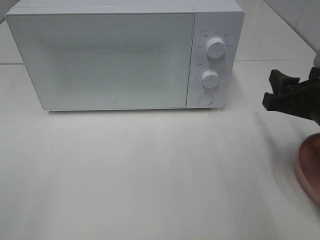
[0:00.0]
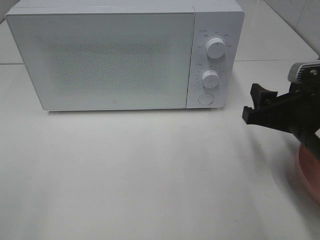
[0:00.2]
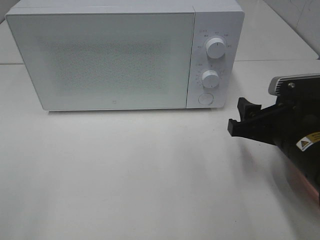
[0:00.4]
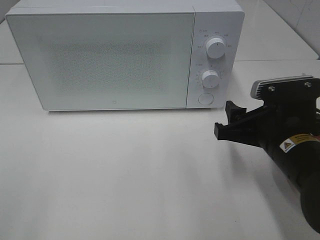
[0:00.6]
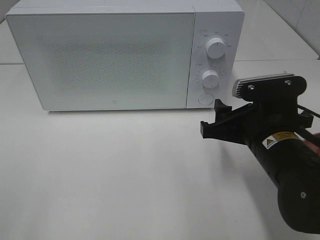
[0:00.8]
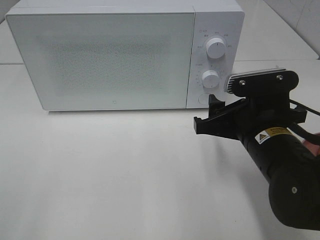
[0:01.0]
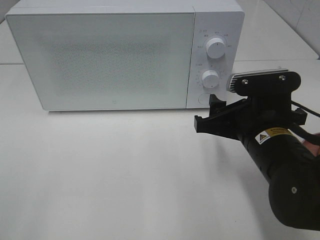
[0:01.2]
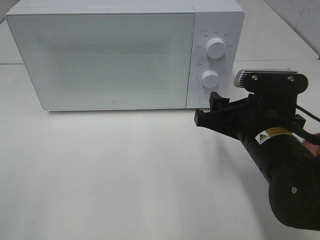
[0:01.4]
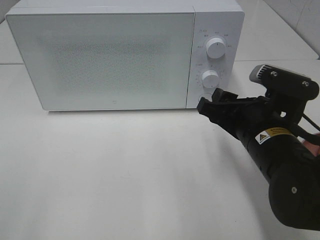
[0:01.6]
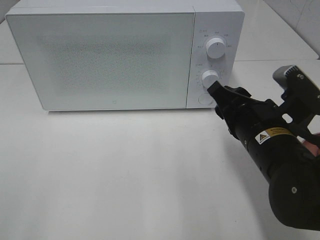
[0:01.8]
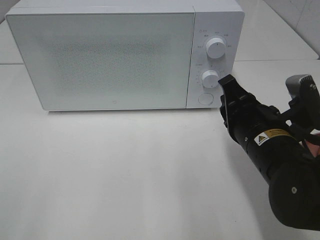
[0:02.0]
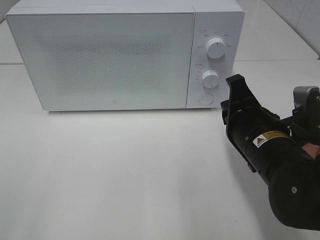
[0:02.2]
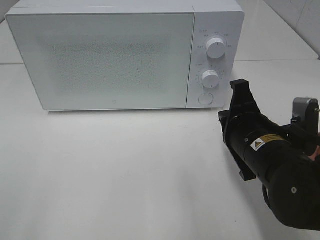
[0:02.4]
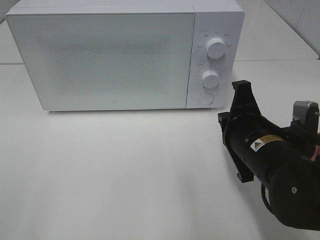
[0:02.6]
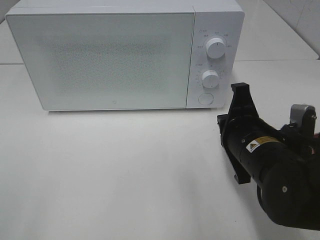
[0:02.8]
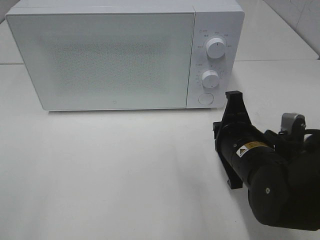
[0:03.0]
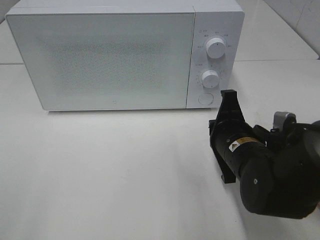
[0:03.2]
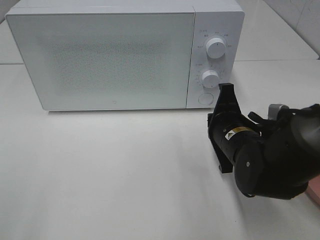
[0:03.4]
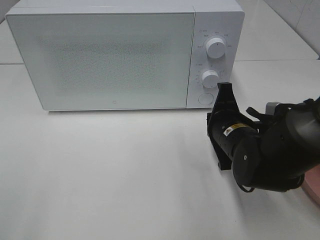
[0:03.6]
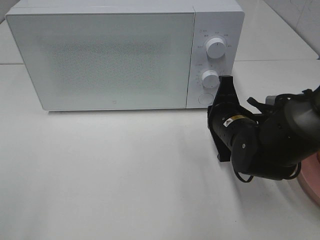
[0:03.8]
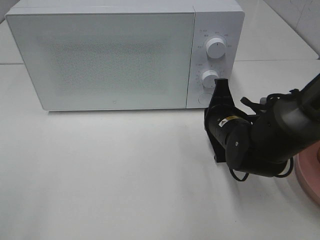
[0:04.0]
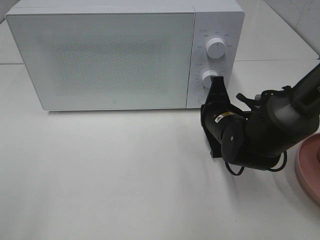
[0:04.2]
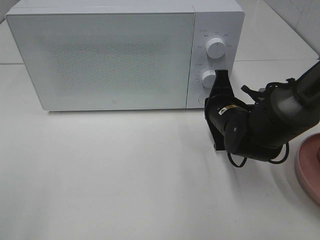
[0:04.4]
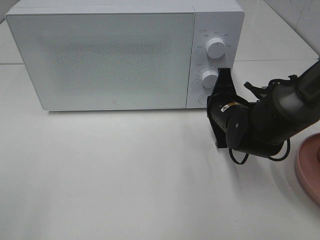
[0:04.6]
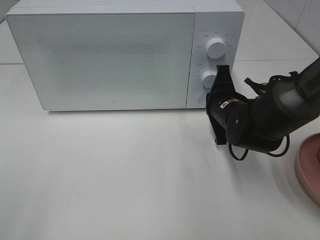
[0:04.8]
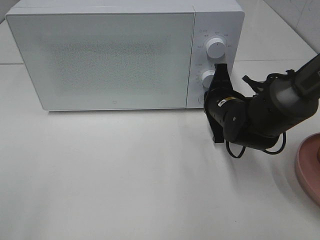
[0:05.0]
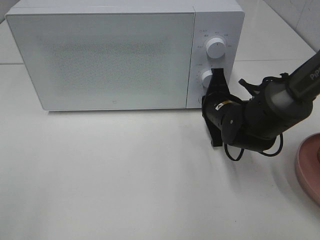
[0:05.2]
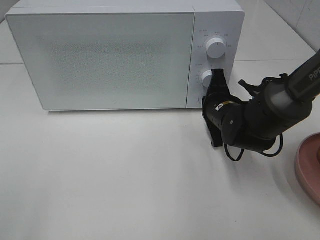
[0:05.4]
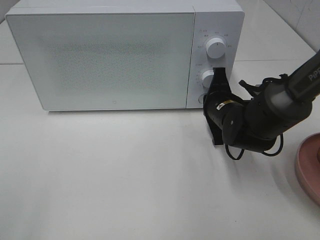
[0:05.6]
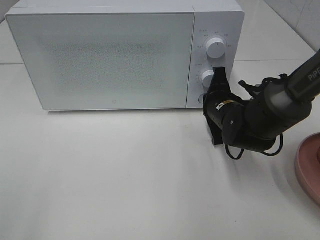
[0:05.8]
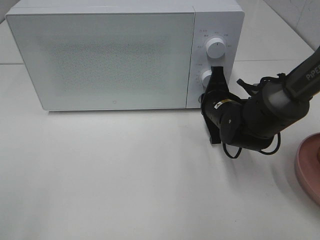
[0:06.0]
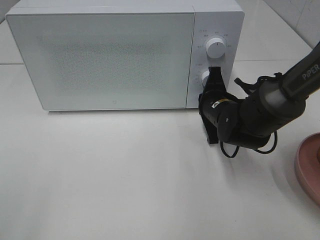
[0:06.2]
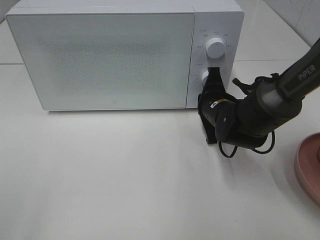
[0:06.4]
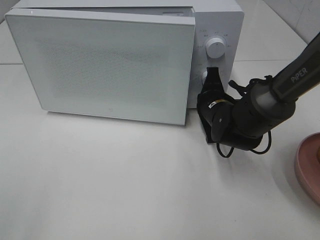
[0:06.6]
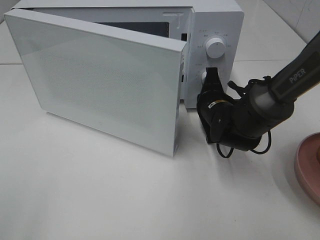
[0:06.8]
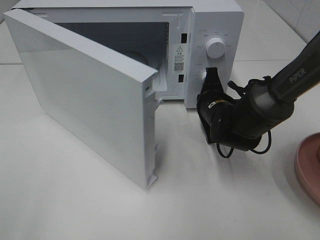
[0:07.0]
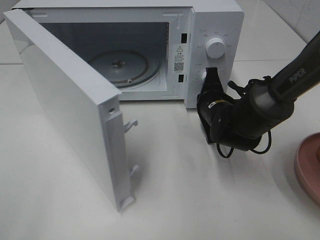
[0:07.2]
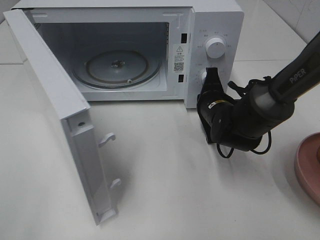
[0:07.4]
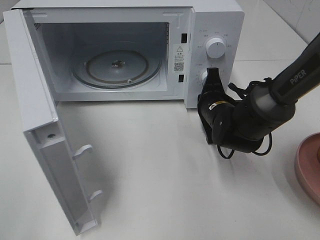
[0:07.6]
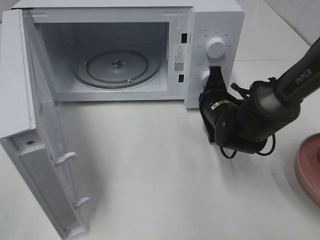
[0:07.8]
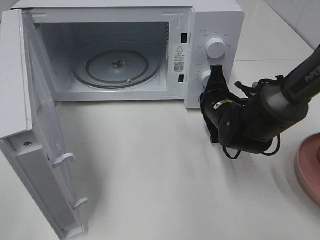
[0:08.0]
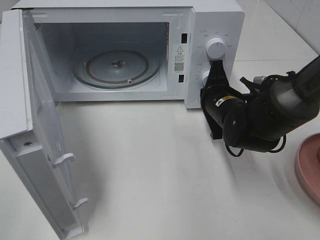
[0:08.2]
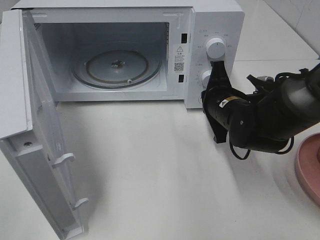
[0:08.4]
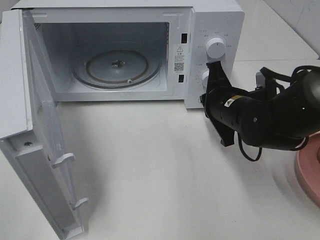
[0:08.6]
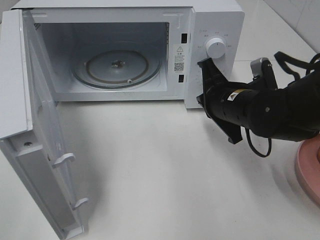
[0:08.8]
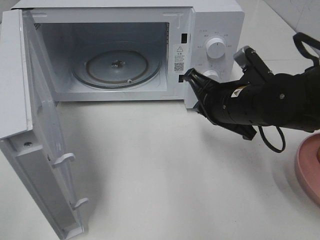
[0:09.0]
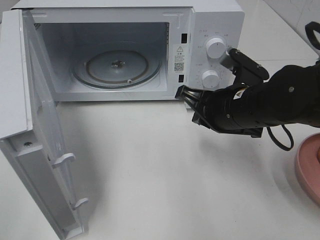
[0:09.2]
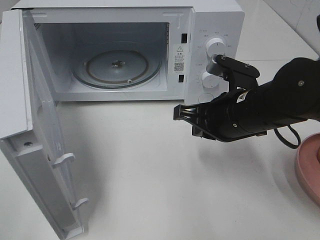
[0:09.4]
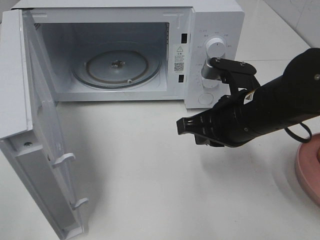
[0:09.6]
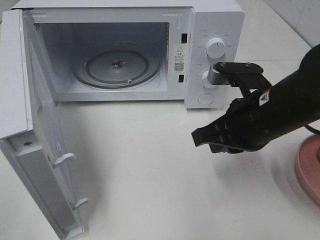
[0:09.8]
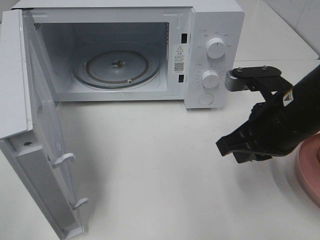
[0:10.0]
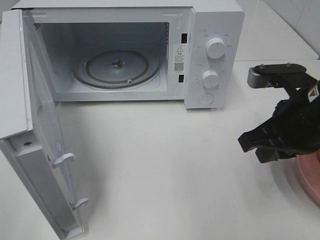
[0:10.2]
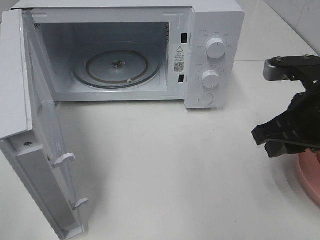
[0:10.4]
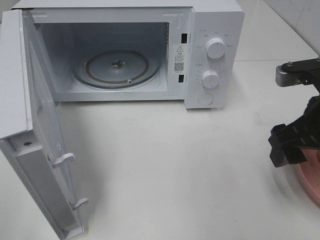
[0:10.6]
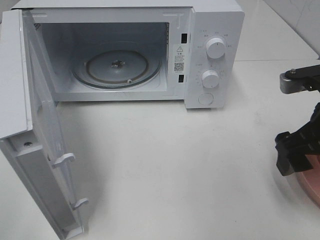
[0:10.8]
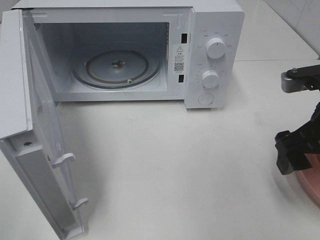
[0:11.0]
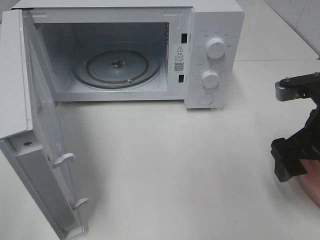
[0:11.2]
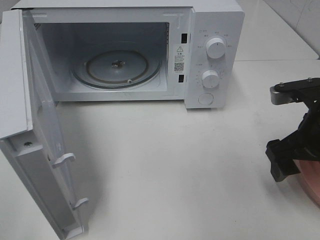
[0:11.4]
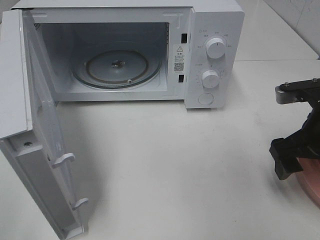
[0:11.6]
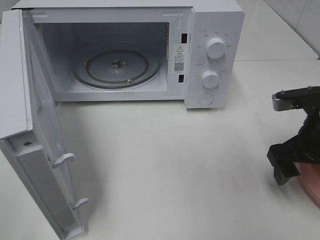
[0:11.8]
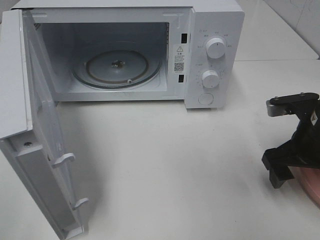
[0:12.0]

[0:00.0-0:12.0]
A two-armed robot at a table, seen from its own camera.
Task of the whole recording: Heat the burger.
Step, 0:00.0 to 0:08.0: Right hand: press the switch.
0:00.0 to 0:01.6: The right gripper is displaced to the left by approximately 10 cm.
0:01.6 to 0:03.0: The right gripper closes its fingers.
0:03.0 to 0:04.4: The right gripper goes some 10 cm forward.
0:04.4 to 0:06.0: The grippers make only small movements.
0:07.6 to 0:09.0: The right gripper is displaced upward and backward by some 10 cm.
0:09.0 to 0:10.4: The right gripper travels to the right, backward and upward by about 10 cm, and opens.
0:10.4 to 0:12.0: The right gripper is displaced downward by approximately 5 cm, and opens up.

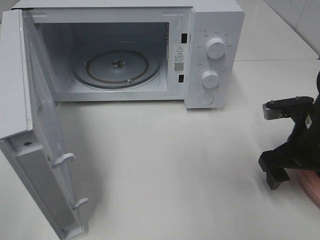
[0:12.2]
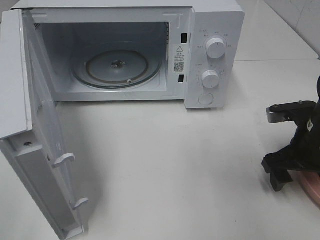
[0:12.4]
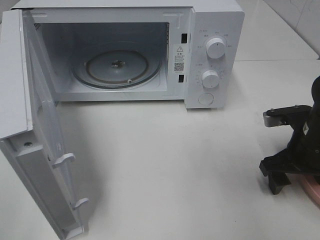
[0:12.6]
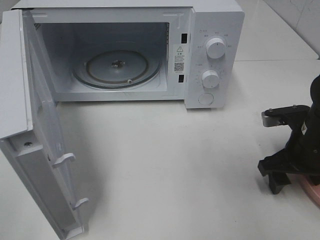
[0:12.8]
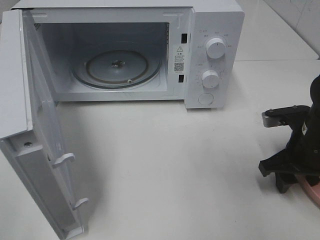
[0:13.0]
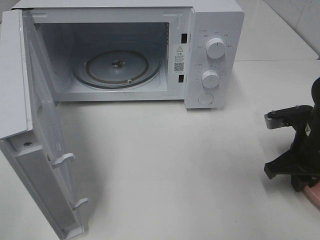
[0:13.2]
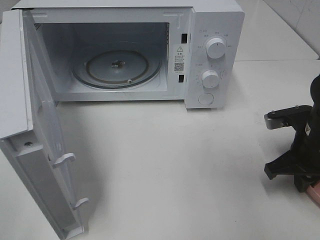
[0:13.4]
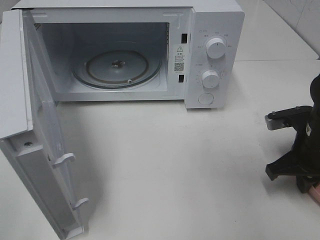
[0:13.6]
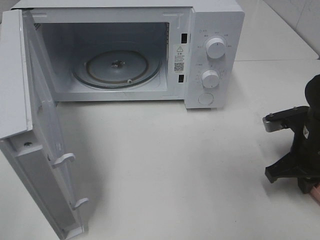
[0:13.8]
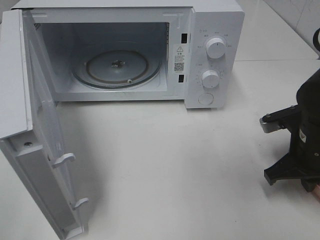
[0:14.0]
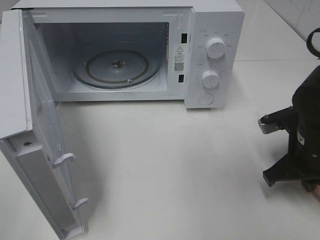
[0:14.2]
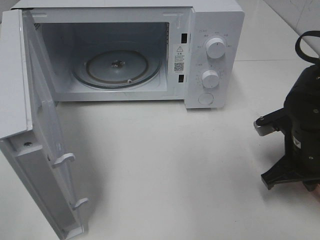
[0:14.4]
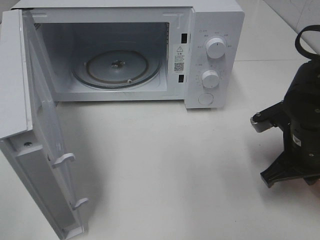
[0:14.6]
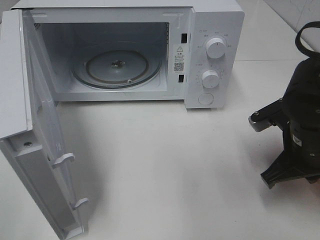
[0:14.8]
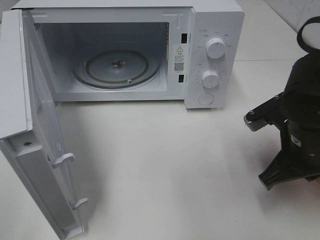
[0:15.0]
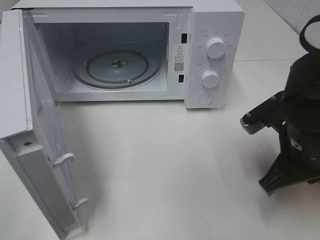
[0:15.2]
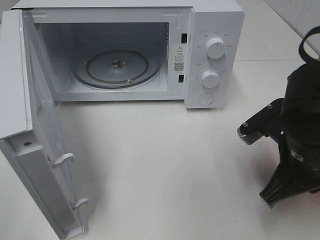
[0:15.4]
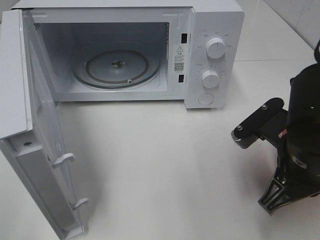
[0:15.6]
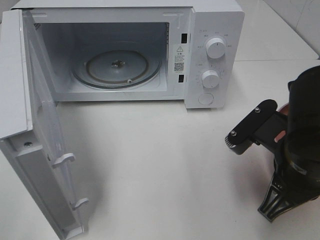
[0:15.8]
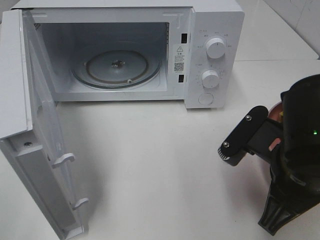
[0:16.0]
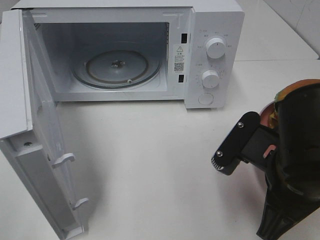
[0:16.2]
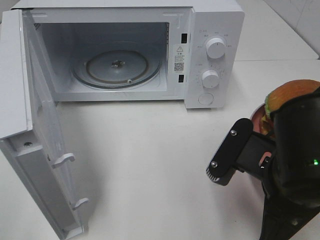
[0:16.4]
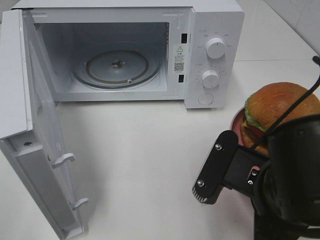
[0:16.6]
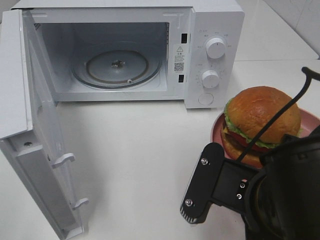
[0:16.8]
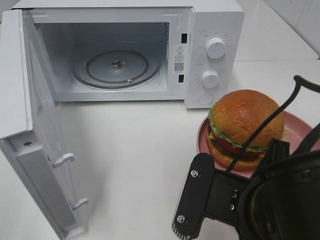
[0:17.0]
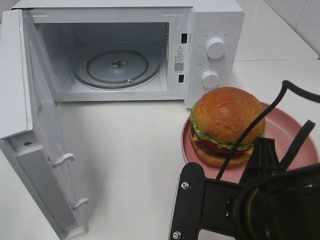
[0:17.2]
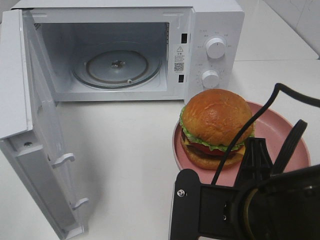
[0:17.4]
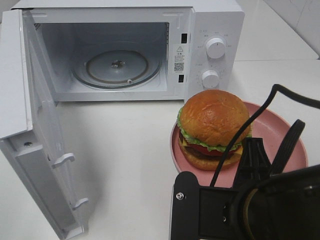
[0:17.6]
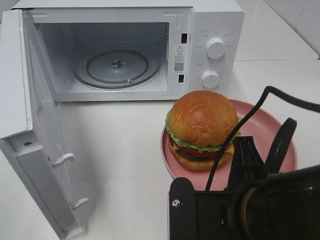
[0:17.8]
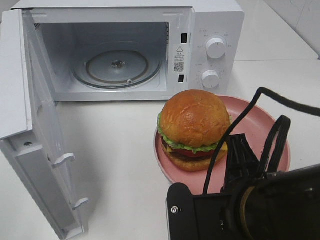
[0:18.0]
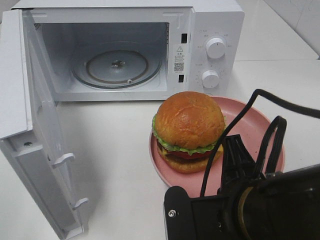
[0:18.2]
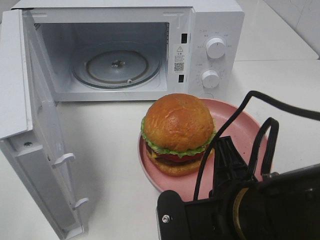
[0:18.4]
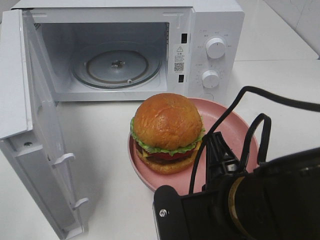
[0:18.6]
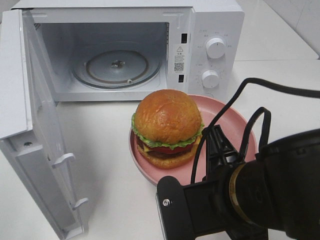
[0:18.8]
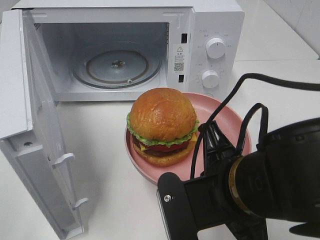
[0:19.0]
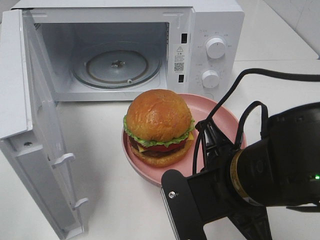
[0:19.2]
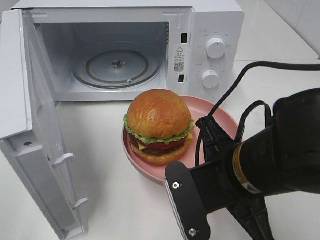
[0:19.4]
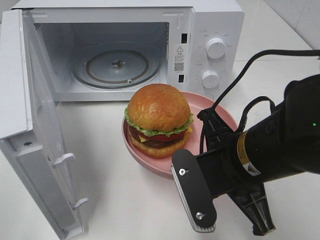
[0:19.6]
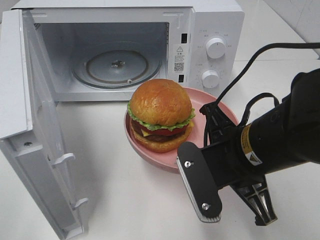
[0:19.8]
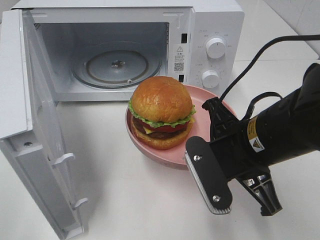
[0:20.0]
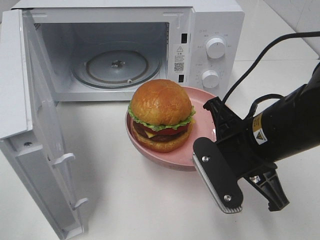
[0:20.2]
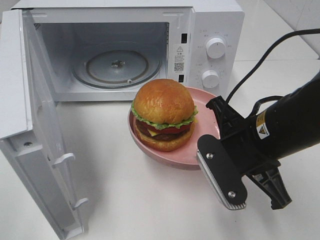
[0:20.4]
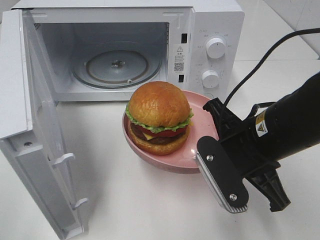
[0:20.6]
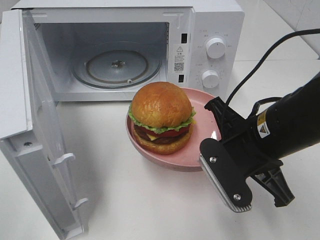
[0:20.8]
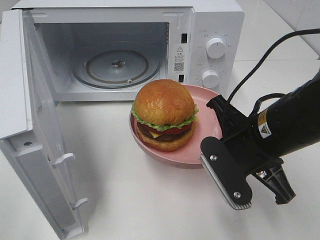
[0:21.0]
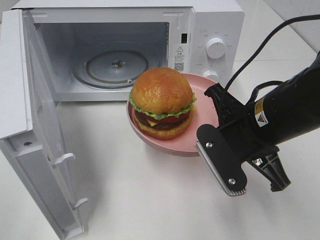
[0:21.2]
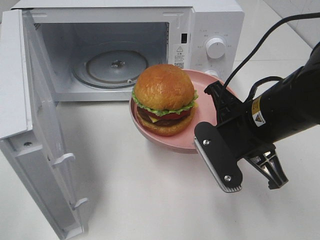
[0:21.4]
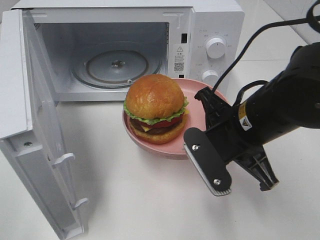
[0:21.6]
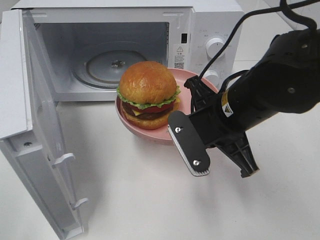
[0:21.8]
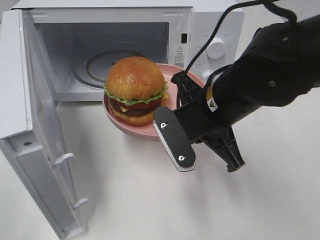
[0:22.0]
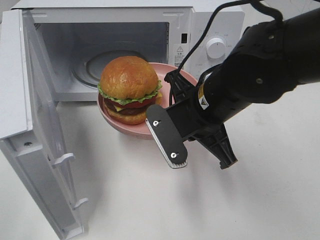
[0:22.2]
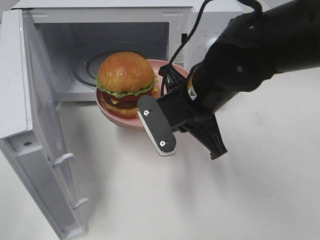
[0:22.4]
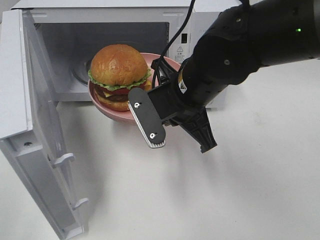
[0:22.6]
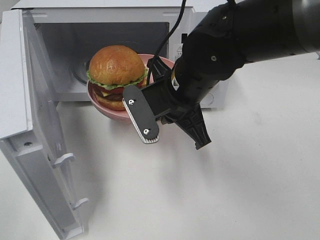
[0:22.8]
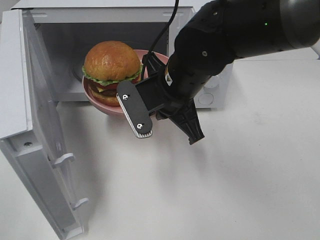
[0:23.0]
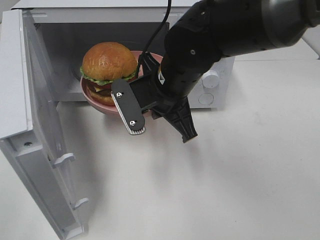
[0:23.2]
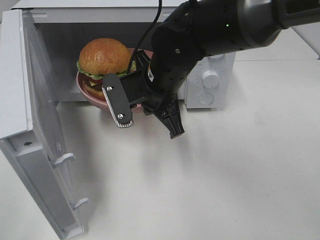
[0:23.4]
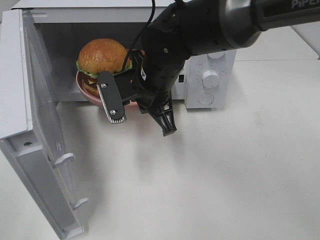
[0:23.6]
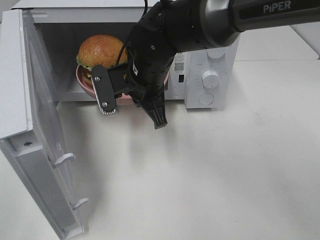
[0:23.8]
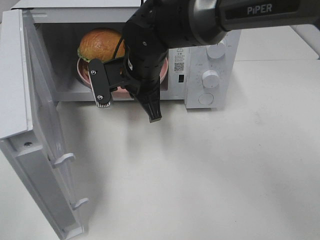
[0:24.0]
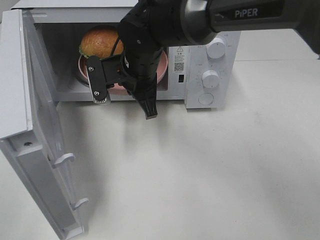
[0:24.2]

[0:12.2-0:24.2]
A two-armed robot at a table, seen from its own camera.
Task of the whole recording: Heat the burger.
0:12.2 to 0:13.8: The right gripper closes its fingers.
0:13.8 to 0:15.2: The right gripper goes some 5 cm to the left.
0:15.2 to 0:16.6: The right gripper heads backward and to the left, covering some 10 cm.
0:18.2 to 0:19.8: The right gripper goes some 10 cm forward.
0:21.2 to 0:22.6: The right gripper shifts some 10 cm to the left and forward.
0:22.6 to 0:24.2: The right gripper goes about 10 cm forward and to the left.
